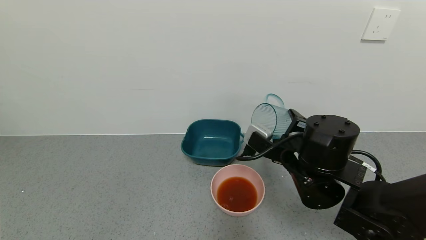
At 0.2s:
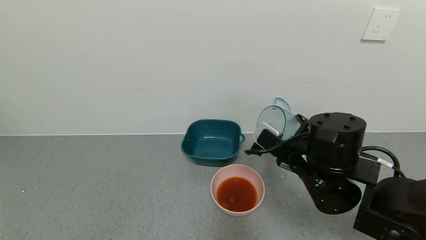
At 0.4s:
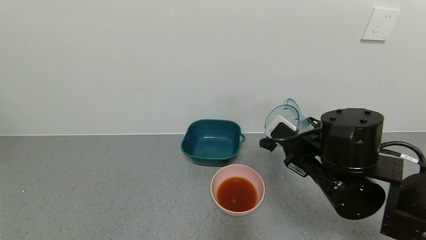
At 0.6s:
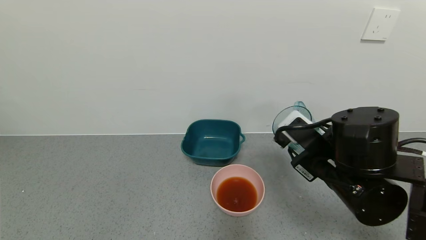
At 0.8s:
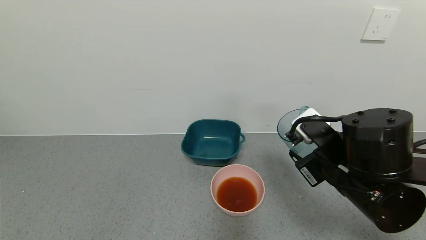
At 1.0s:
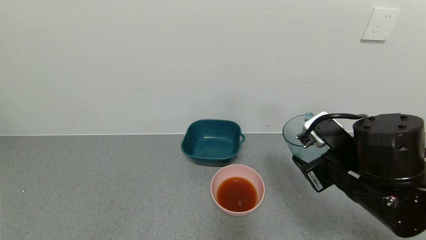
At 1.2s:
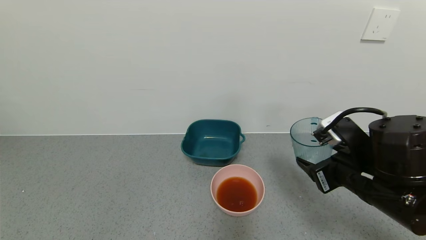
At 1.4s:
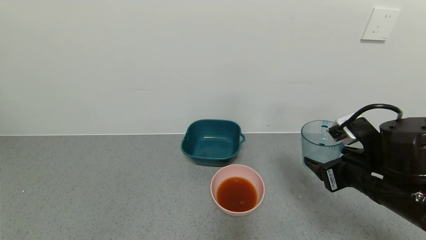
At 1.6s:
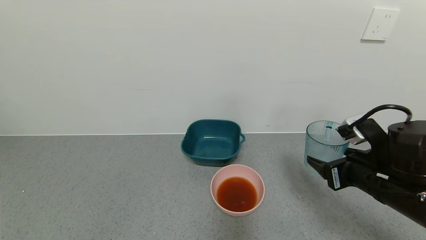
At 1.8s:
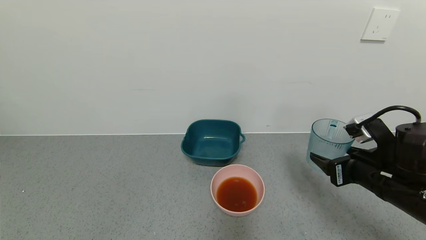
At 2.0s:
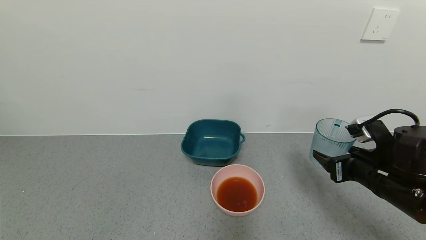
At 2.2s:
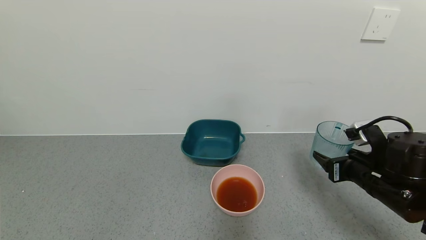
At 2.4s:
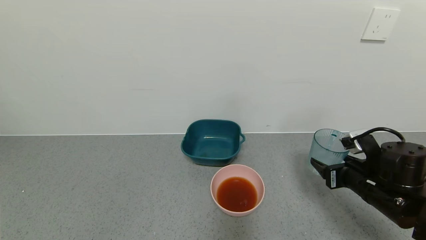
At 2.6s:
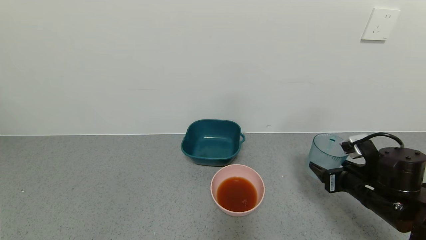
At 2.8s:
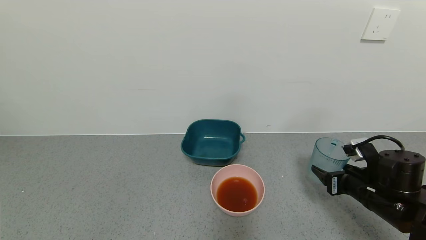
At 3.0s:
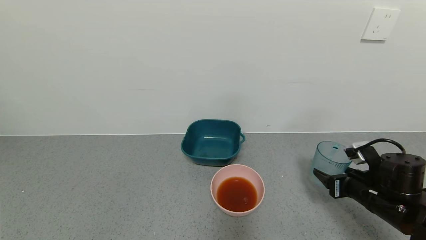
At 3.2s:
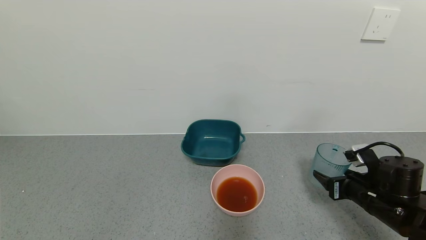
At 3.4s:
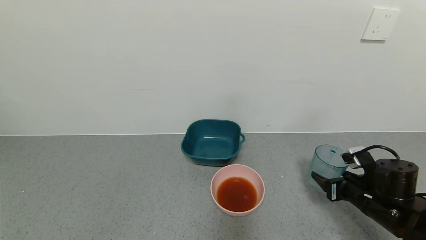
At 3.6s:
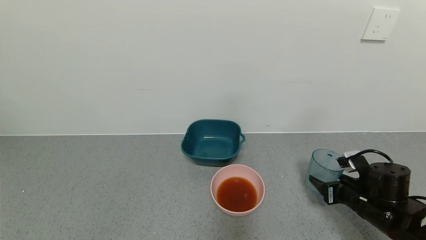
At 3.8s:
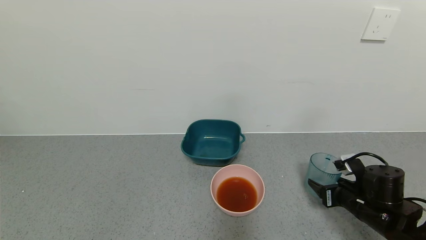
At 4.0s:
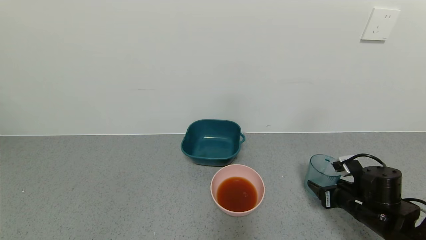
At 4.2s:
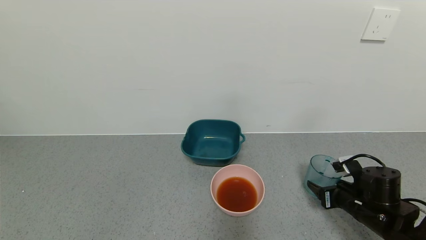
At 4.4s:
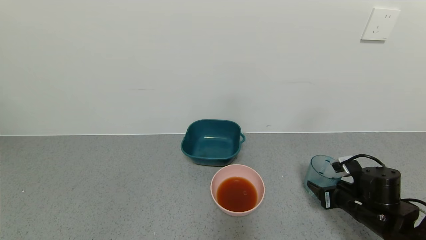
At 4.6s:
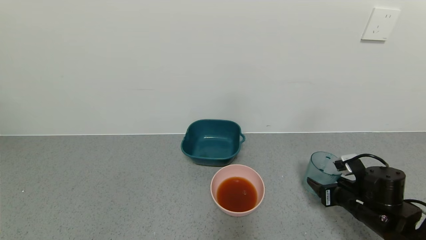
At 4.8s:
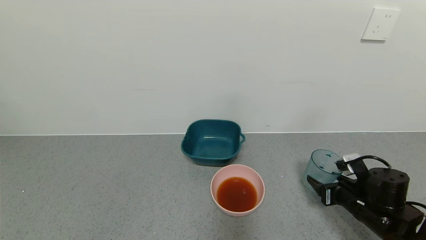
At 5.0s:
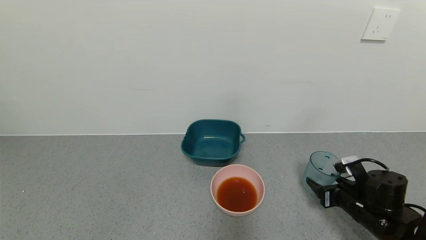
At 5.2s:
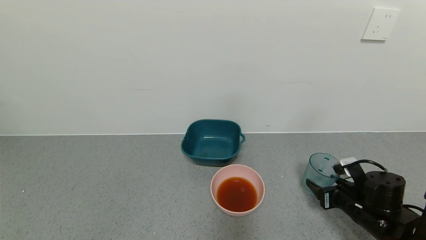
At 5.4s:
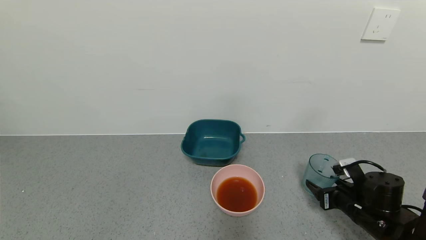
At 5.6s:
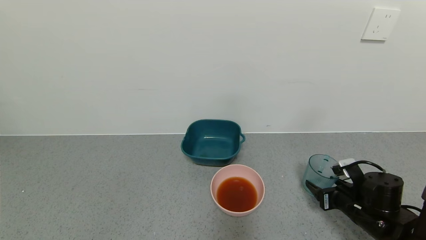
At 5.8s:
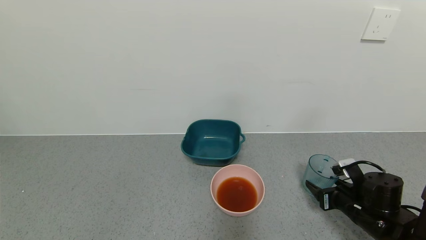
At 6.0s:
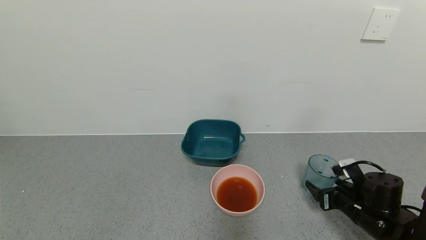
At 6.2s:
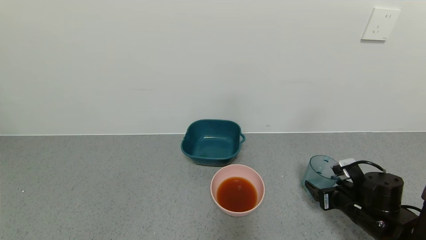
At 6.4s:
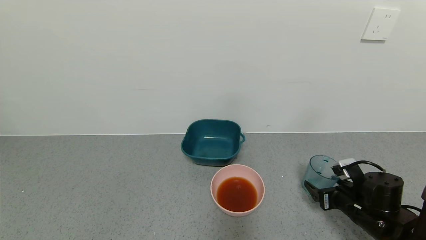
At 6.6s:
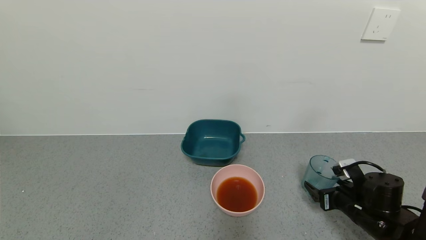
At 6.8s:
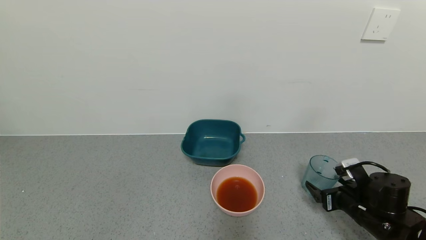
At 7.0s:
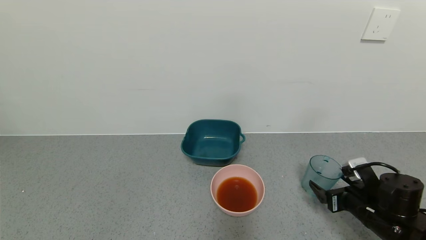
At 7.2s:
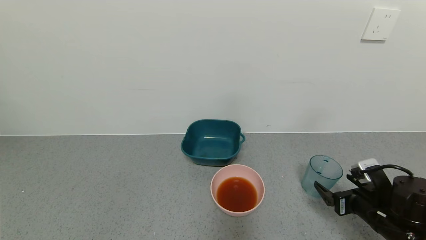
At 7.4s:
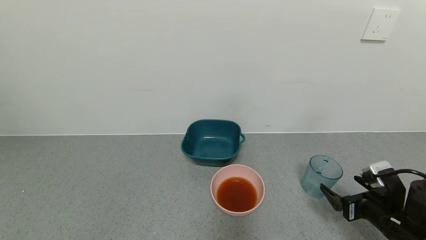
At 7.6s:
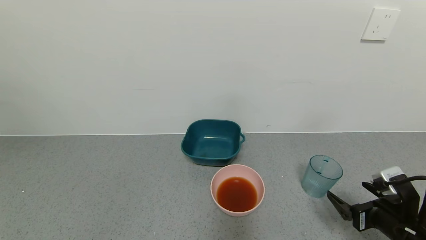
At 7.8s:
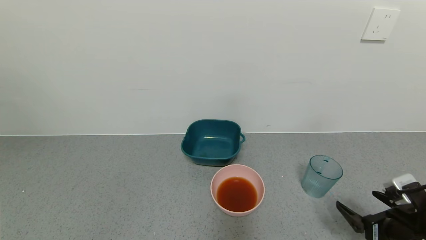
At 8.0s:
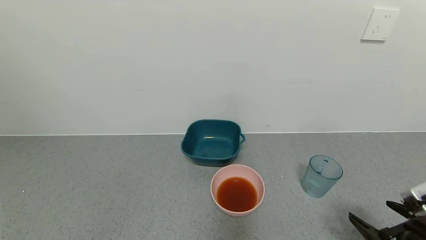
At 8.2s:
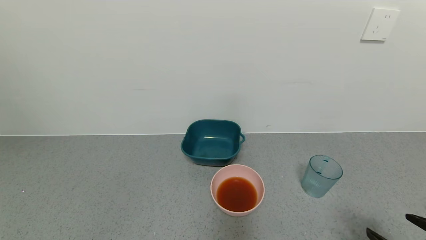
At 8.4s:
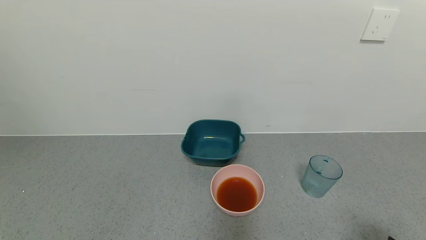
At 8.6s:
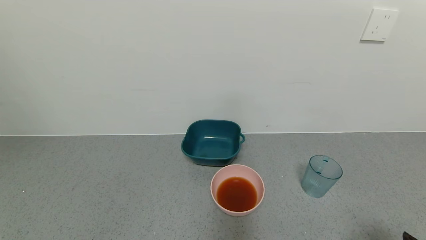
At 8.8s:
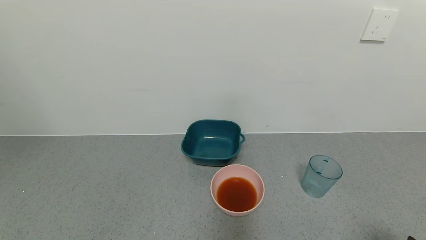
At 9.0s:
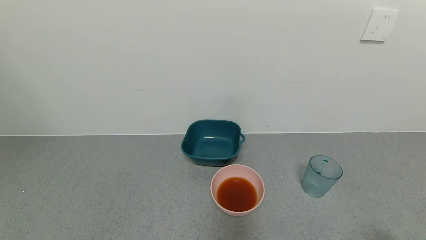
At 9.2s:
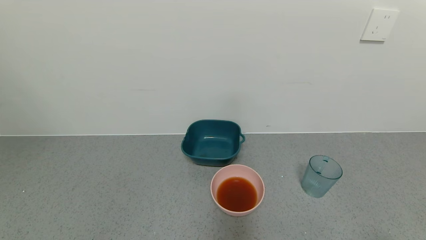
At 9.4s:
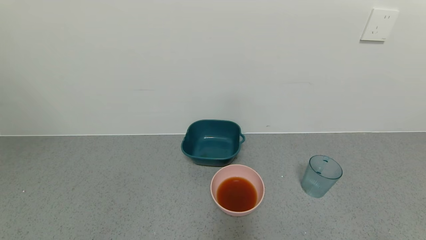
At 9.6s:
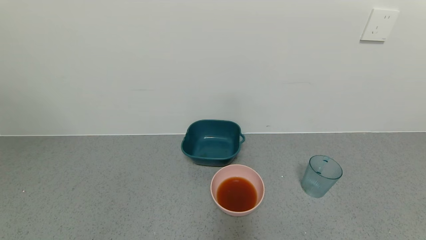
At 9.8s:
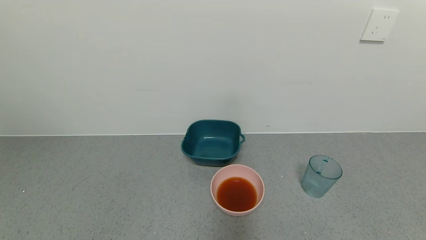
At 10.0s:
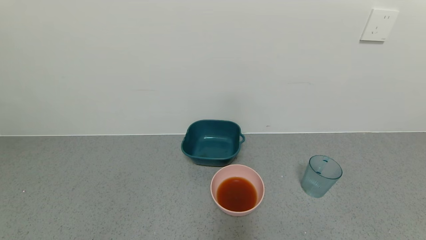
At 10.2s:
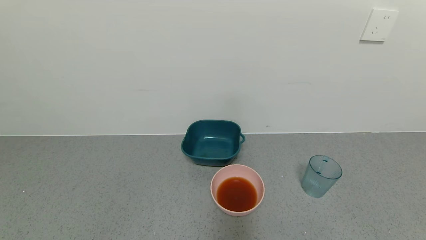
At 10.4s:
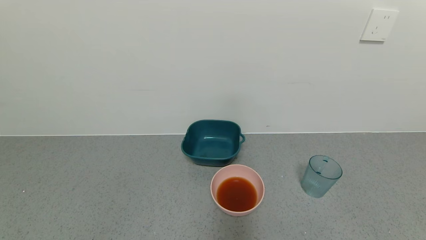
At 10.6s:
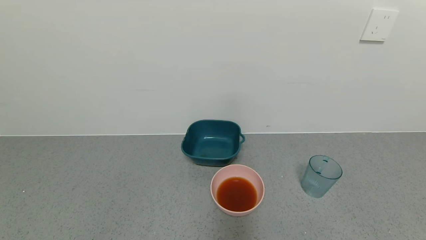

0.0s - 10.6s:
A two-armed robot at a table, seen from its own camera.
Task of the whole recording: use a gripper to pick up the cup and pour the liquid into a bowl or tray.
Step, 0.2s - 7.6s: Place the glass cup with the right gripper.
0.0s - 1.6s: The right gripper moves to the right, roughly 10 cm.
1.6s - 3.0s: The right gripper goes some 10 cm downward and to the right.
3.0s - 4.6s: The grippers move only a little.
4.6s - 6.0s: Both grippers stay about where they are.
6.0s - 7.6s: The right gripper shifts about 5 cm backward, and opens up.
7.6s - 9.0s: The right gripper heads backward, covering roughly 15 cm.
